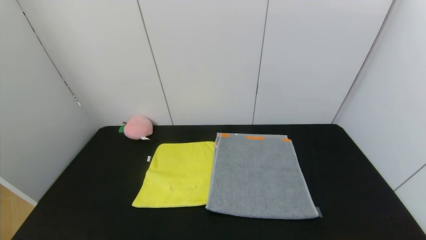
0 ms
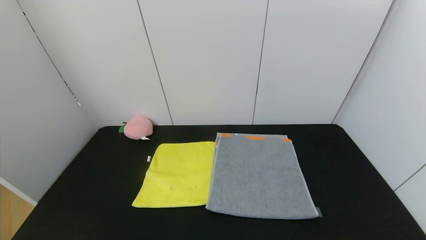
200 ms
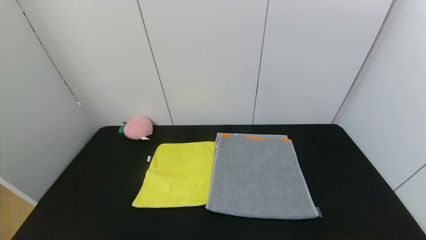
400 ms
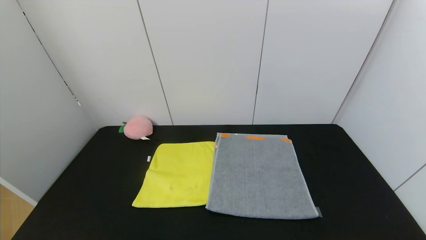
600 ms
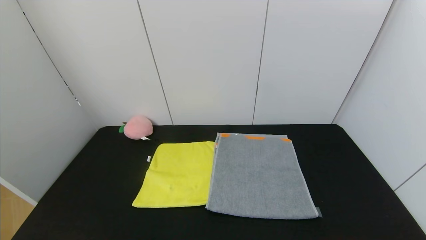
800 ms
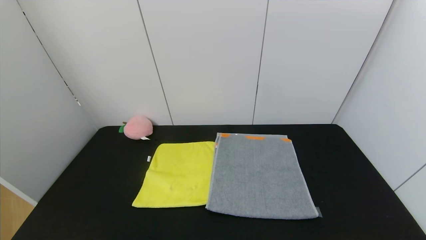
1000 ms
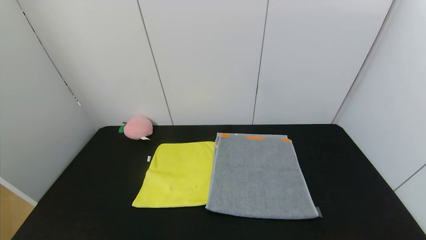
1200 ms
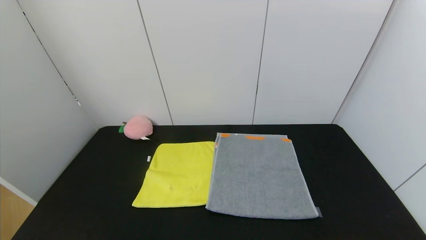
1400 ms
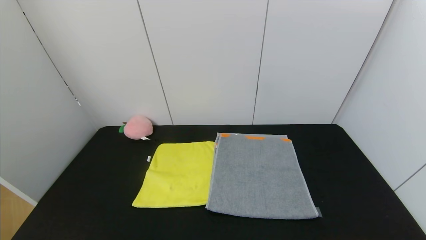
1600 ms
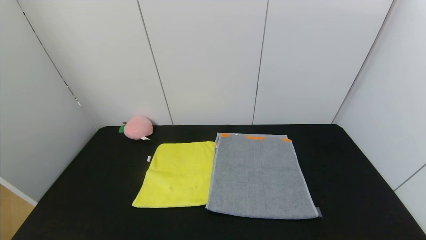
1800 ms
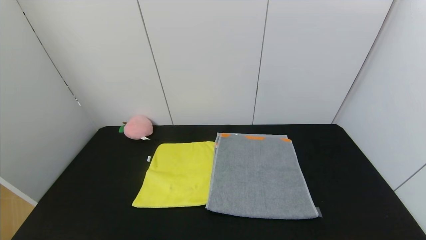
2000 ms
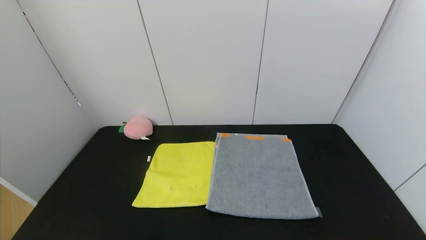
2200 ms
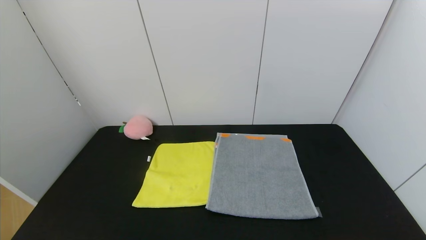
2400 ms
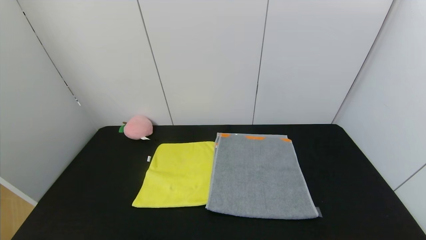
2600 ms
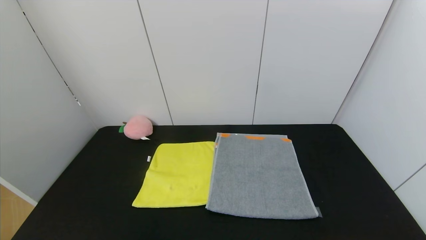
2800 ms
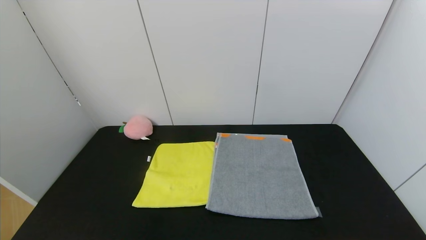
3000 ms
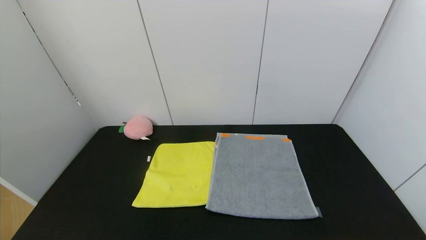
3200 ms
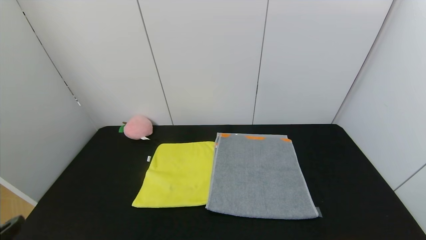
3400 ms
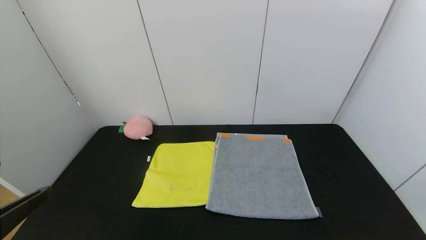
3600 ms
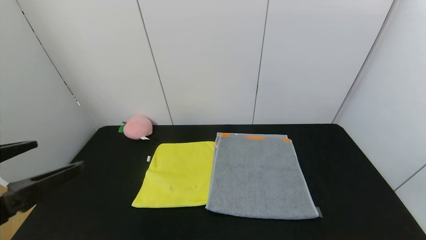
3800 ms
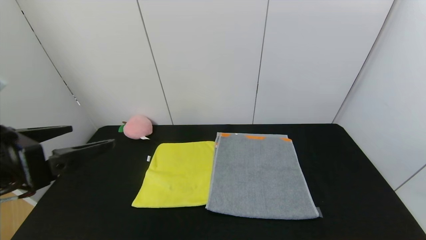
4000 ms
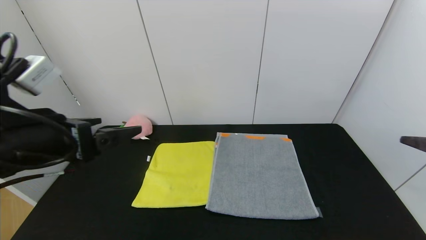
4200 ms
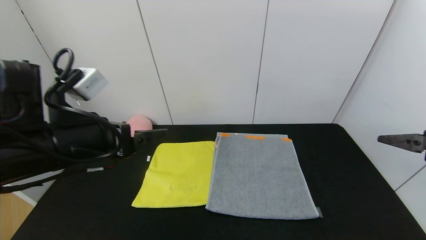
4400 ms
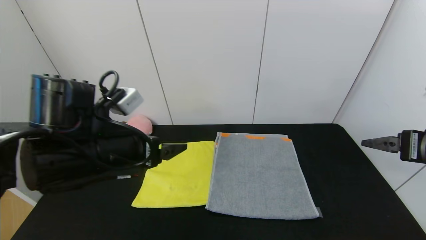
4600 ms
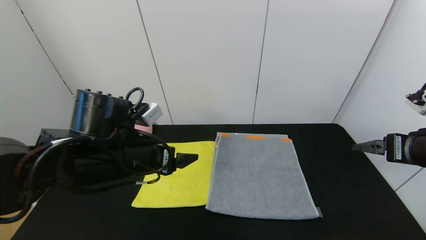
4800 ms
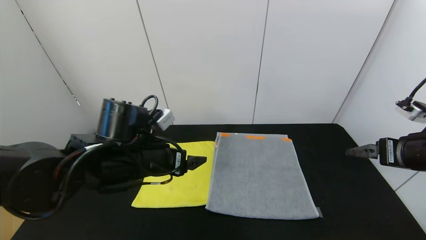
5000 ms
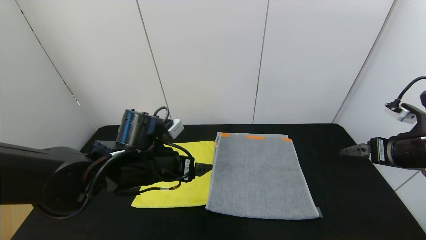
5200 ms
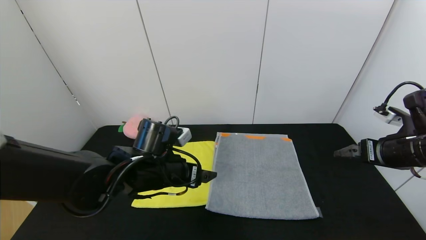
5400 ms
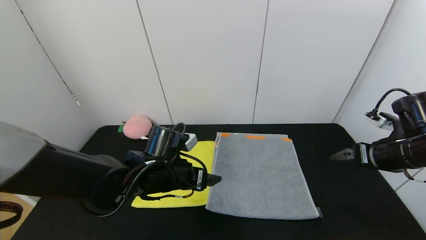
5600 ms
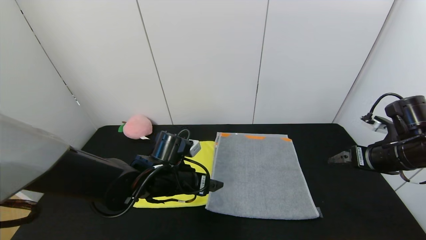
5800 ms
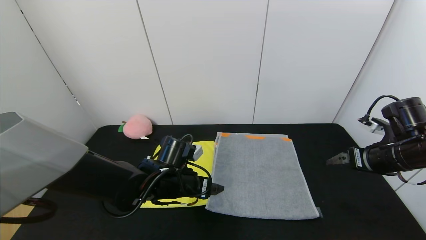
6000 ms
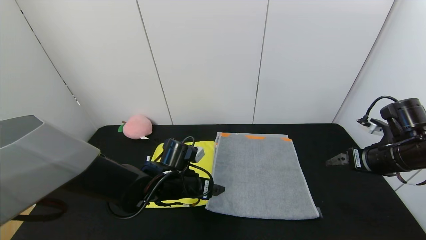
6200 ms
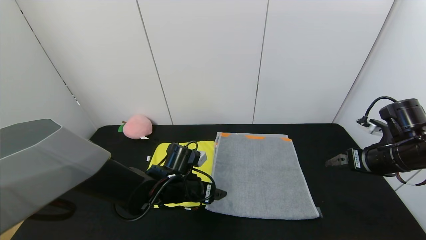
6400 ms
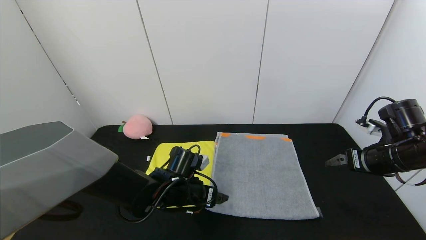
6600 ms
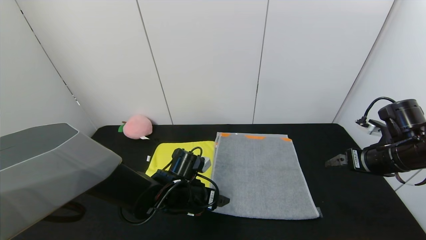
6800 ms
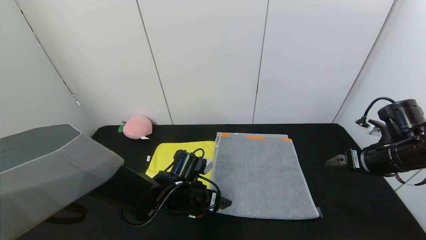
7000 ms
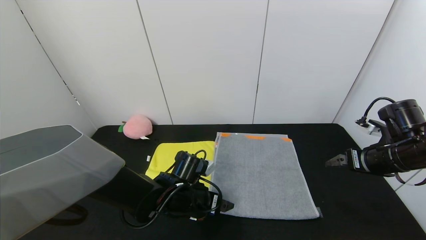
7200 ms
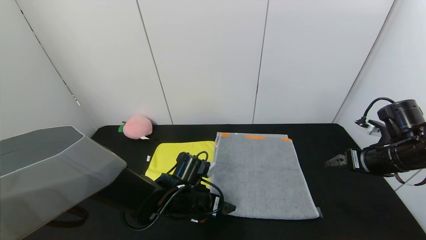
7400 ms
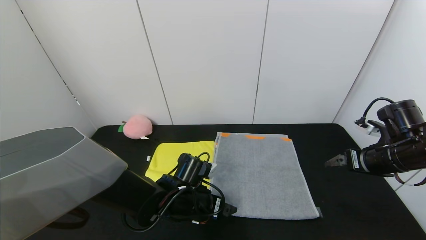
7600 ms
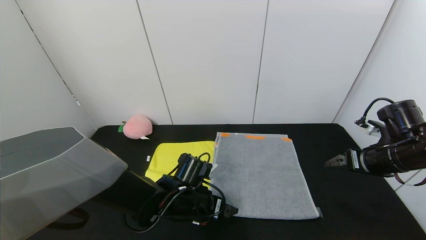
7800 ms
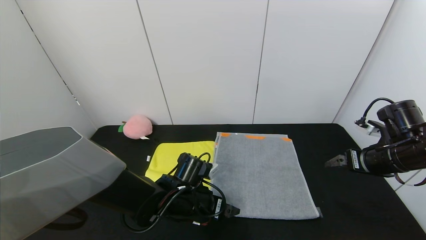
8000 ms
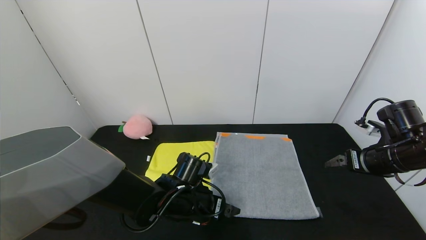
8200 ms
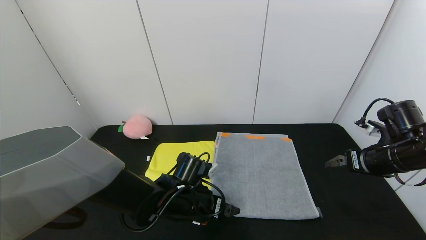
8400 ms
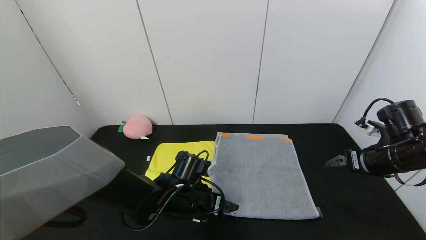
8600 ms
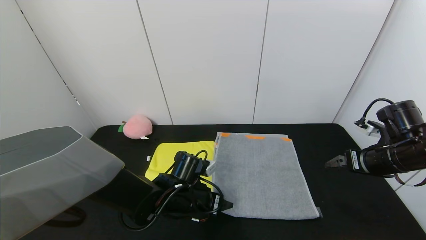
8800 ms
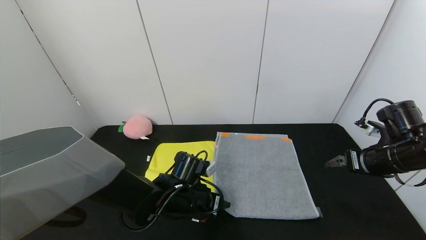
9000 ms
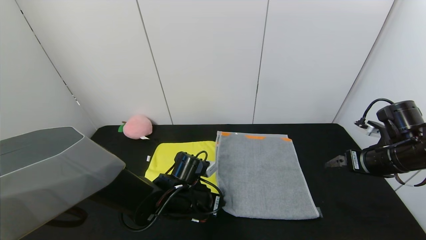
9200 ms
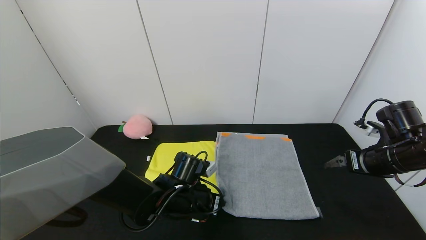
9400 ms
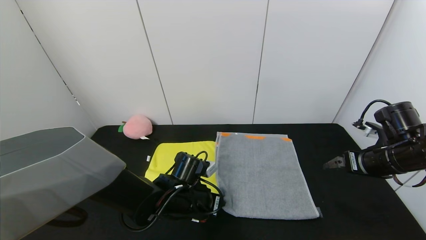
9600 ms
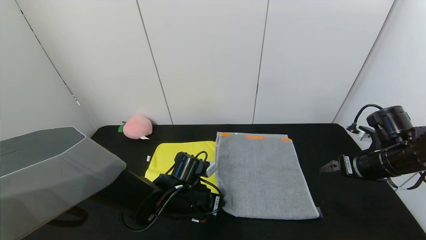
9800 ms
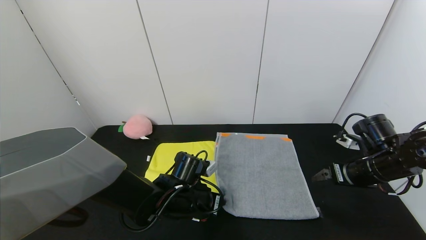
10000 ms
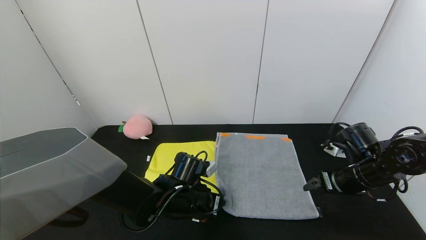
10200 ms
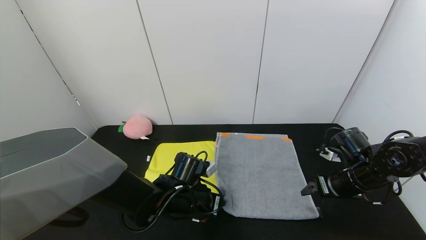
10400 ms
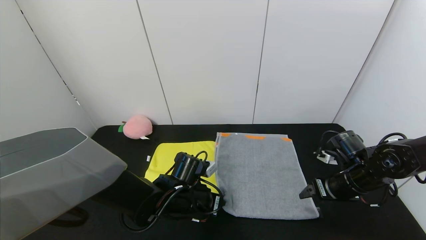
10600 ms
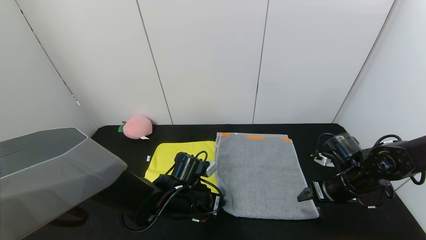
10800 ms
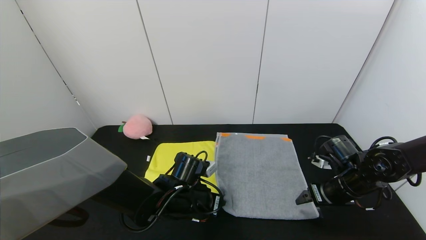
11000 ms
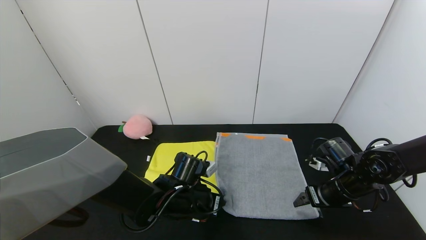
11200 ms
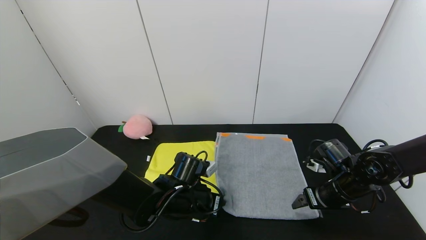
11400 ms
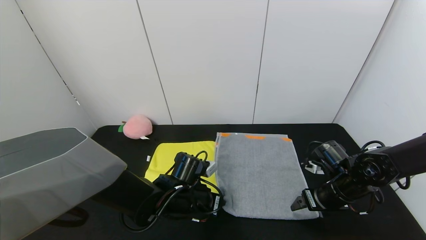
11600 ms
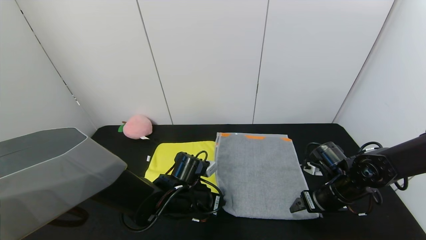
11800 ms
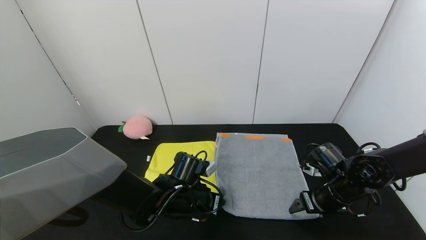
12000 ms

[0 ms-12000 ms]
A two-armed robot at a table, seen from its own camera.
Task of the whole recording: Use the gripper to fold the yellow towel and grey towel in half twice,then put the yellow towel on the grey towel.
0 ms to 1600 ms: Neither gripper changes place.
3000 ms to 4400 ms: The right gripper goes roughly 25 cm forward and upward, while the left gripper heads forward, covering approximately 25 cm.
4400 ms to 6000 ms: The right gripper moves forward and downward, approximately 15 cm. Meanwhile the left gripper heads downward, to the right and forward, covering approximately 20 cm.
6000 ms to 7600 ms: The grippers stay close to where they were, moving slightly.
7600 ms to 9000 ms: The left gripper closes up.
9000 ms to 10400 ms: The left gripper closes, while the right gripper travels downward and to the left by approximately 10 cm.
10400 ms to 12000 ms: There are only small adjustments of the grippers.

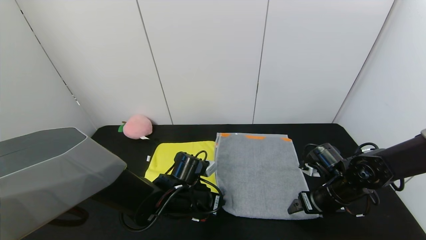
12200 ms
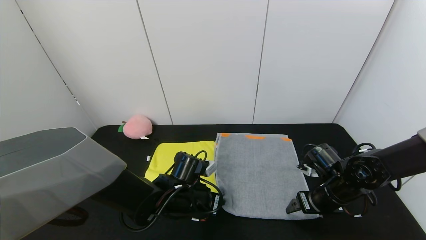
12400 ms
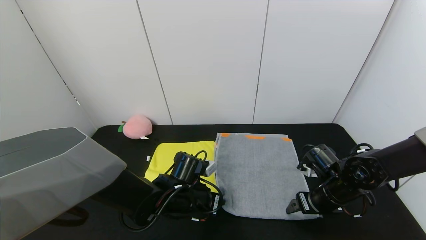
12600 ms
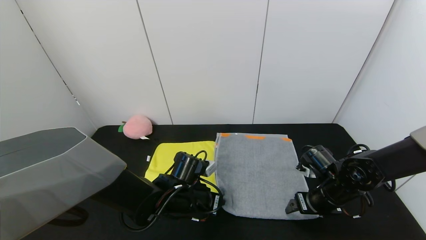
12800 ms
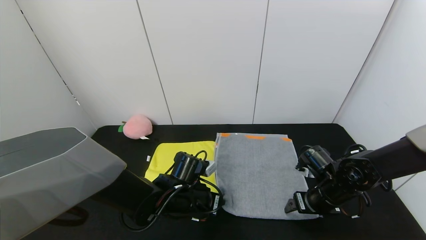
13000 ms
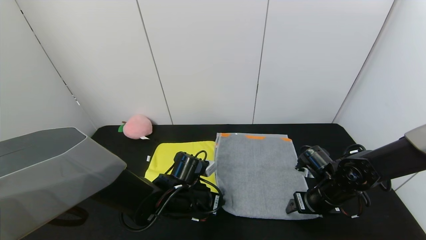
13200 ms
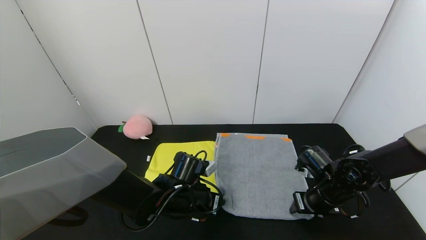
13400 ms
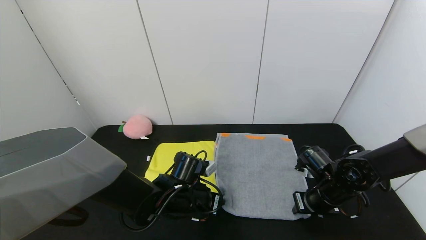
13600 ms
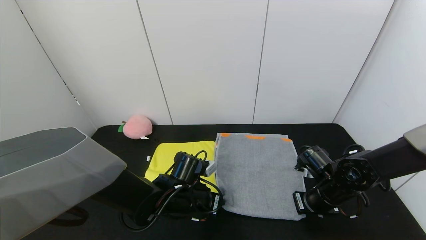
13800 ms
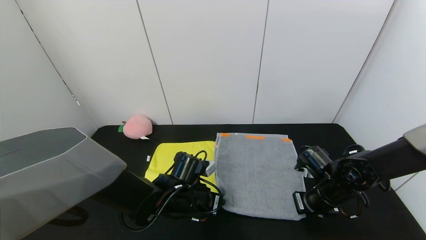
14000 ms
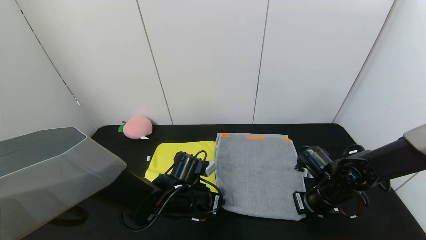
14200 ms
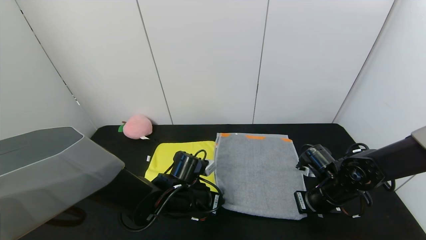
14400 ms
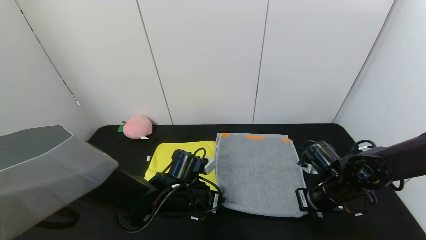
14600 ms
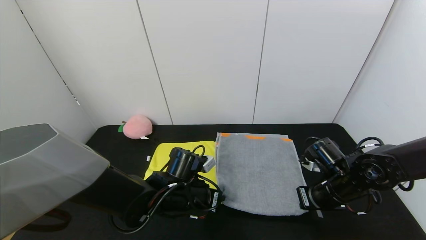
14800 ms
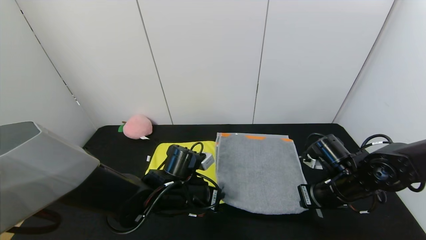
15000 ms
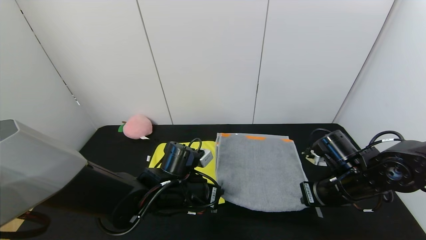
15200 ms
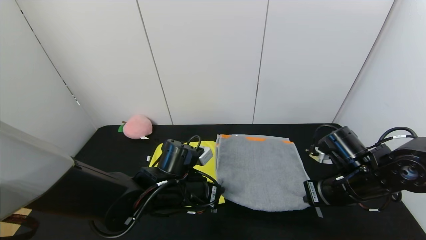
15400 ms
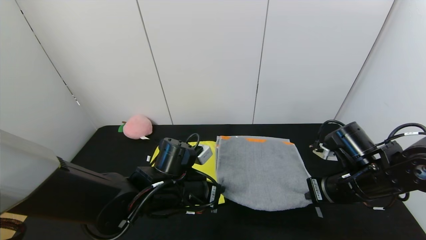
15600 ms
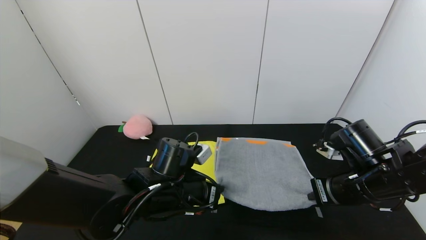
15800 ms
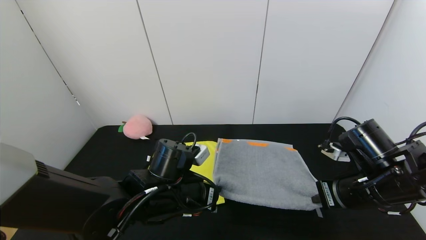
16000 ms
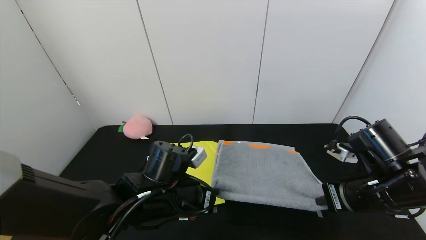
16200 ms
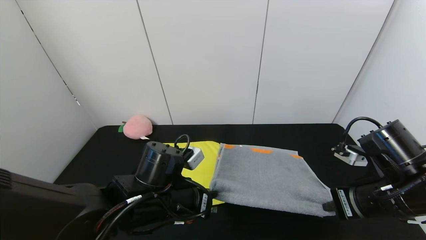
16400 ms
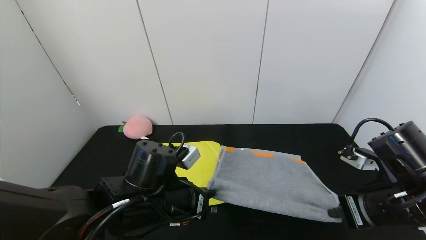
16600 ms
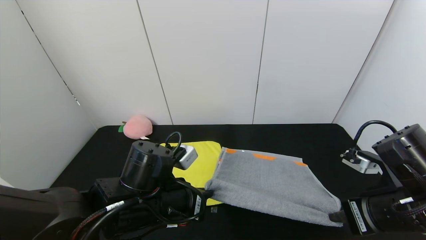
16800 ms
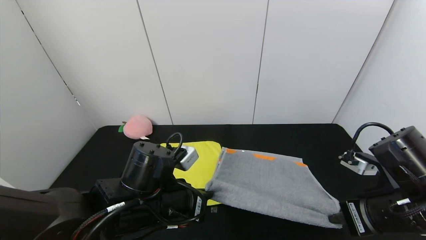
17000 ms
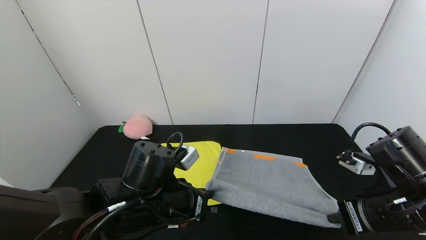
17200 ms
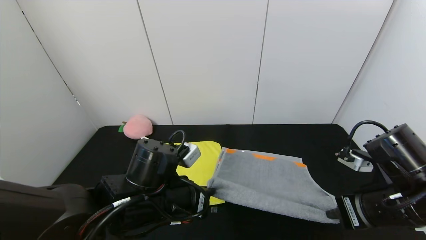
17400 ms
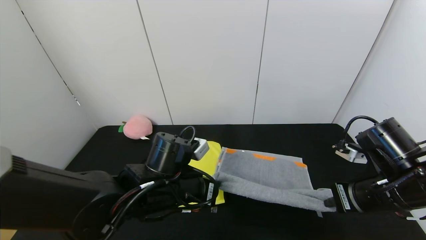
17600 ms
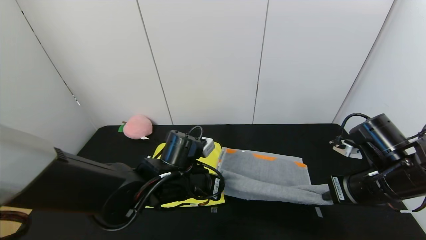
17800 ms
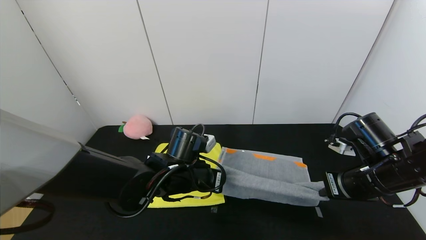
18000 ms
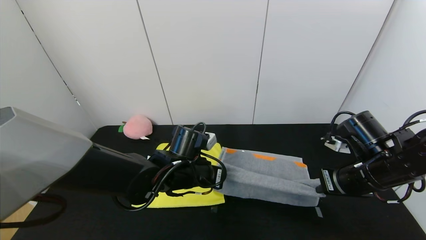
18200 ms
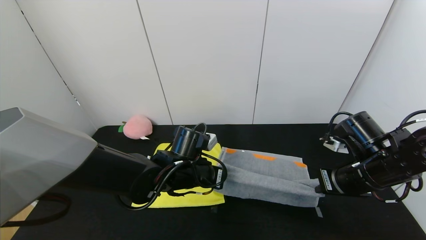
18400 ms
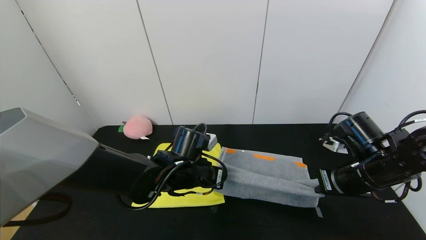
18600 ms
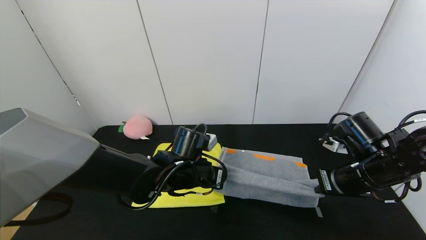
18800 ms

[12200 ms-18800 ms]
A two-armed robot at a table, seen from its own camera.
Task of the whole recording: Use the gripper to fold the yellow towel and grey towel in half twice,then put the yellow towel on the grey towel.
12200 ms to 13800 ms: The right gripper closes.
13800 ms to 15400 ms: The grippers both shift upward by some 5 cm.
15400 ms to 17200 ms: The right gripper is displaced backward by approximately 10 cm; the left gripper shifts roughly 5 cm backward.
17200 ms to 18800 ms: The grippers both shift forward by some 10 cm.
